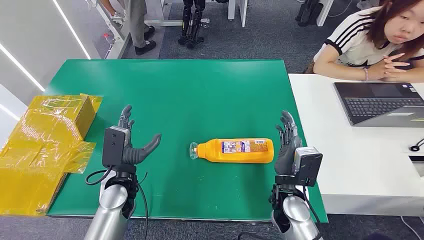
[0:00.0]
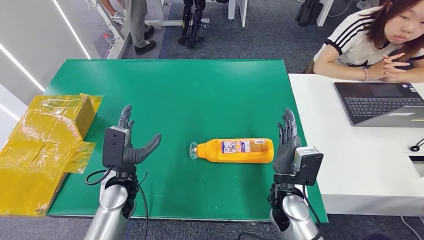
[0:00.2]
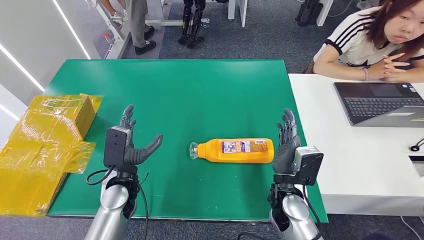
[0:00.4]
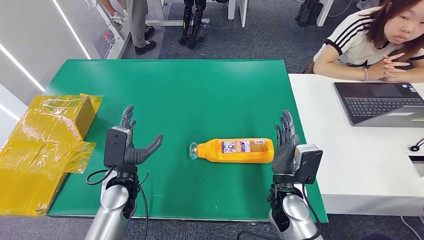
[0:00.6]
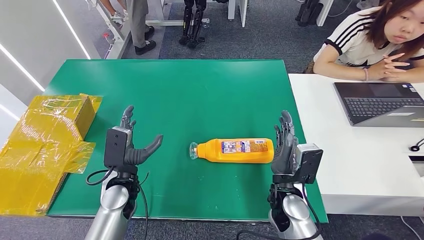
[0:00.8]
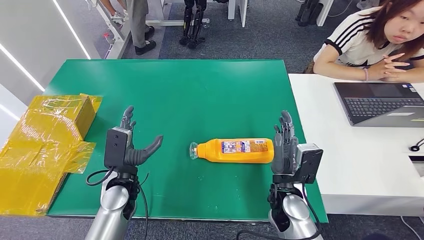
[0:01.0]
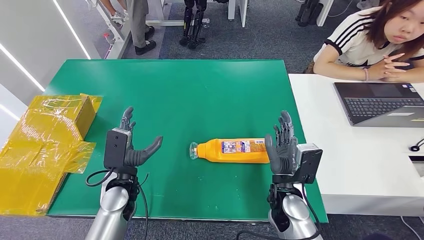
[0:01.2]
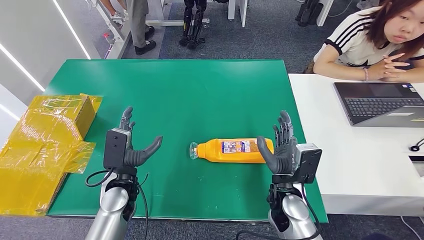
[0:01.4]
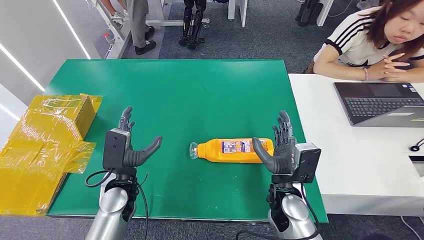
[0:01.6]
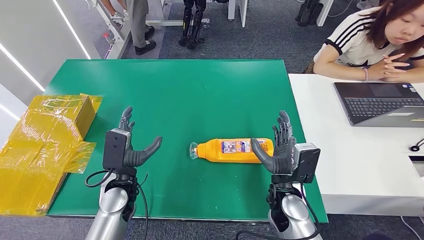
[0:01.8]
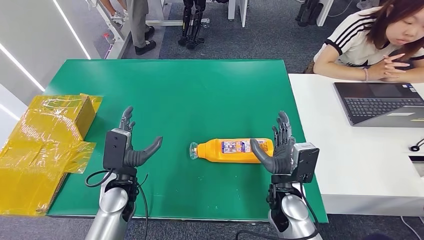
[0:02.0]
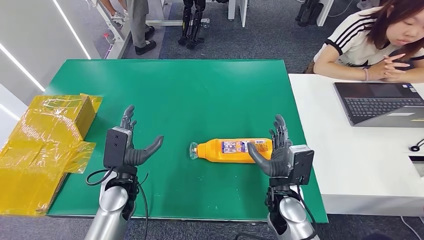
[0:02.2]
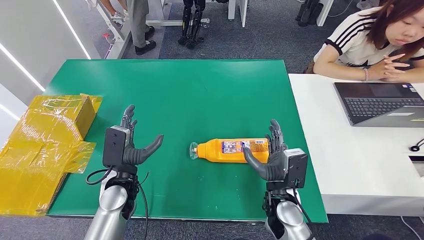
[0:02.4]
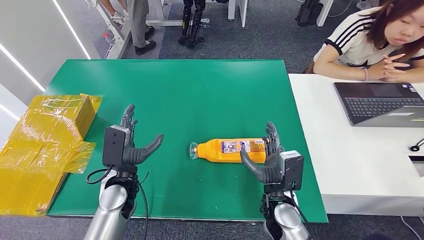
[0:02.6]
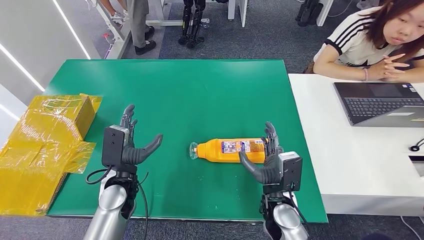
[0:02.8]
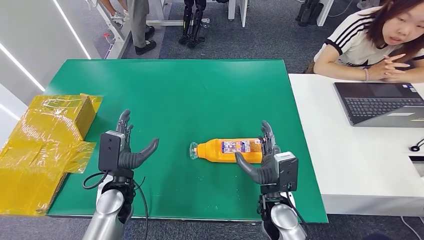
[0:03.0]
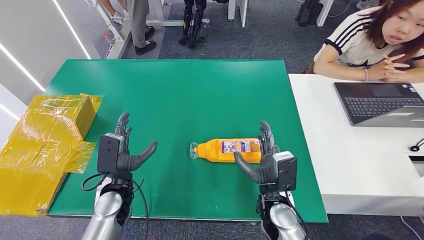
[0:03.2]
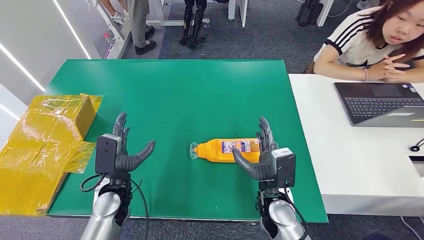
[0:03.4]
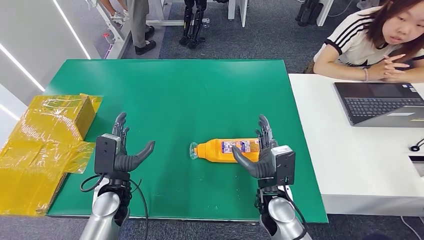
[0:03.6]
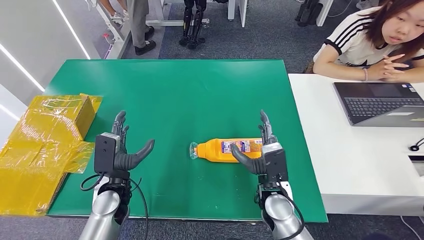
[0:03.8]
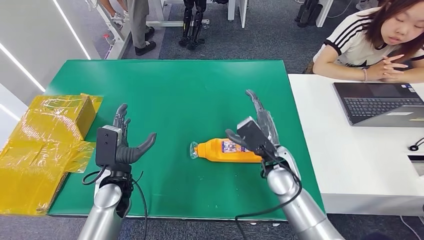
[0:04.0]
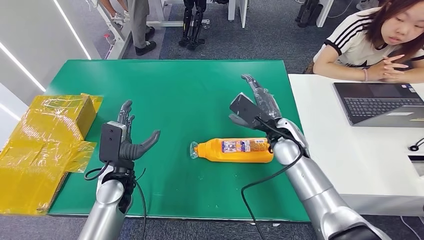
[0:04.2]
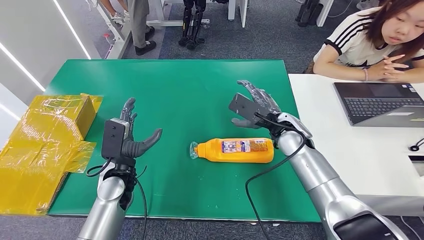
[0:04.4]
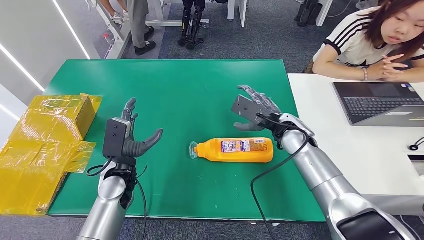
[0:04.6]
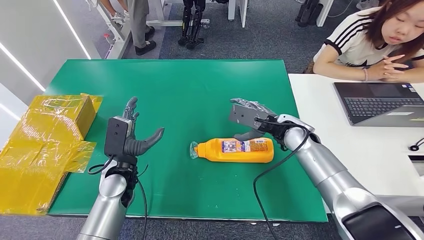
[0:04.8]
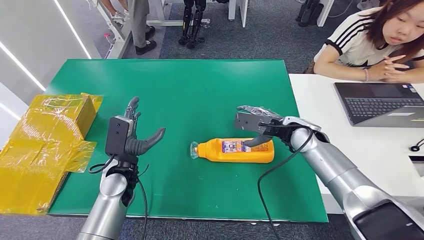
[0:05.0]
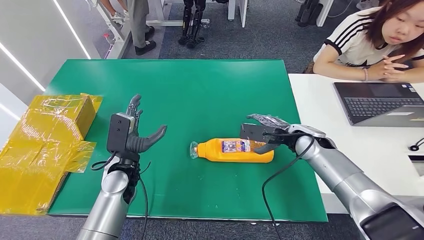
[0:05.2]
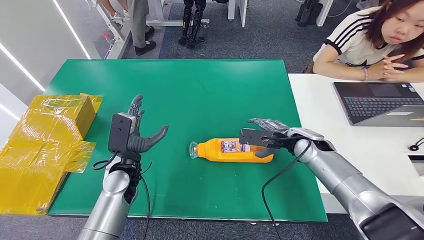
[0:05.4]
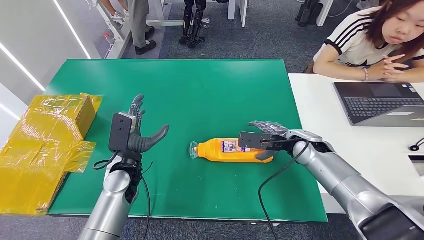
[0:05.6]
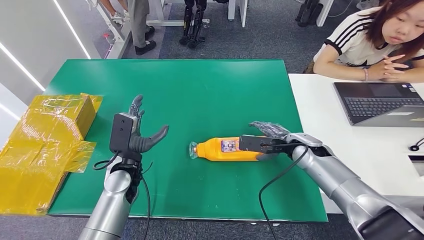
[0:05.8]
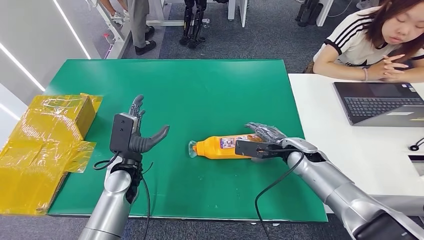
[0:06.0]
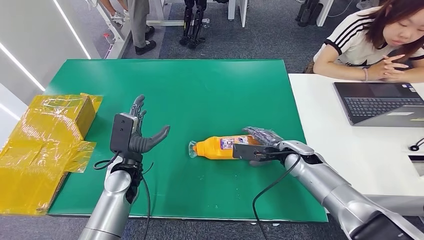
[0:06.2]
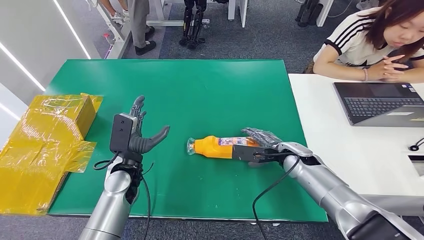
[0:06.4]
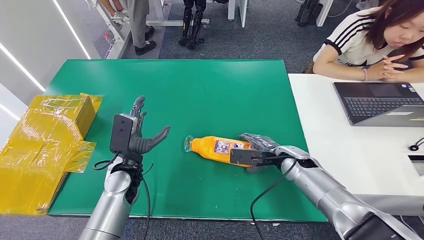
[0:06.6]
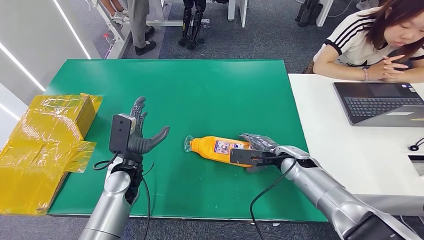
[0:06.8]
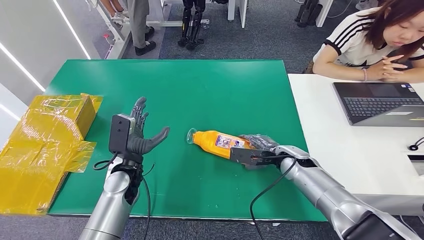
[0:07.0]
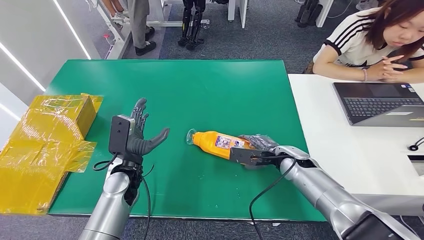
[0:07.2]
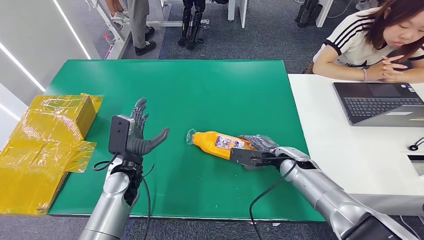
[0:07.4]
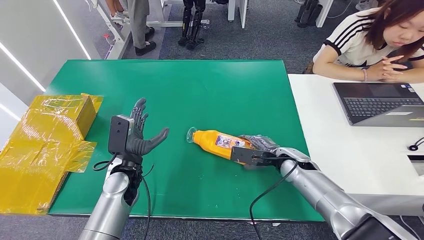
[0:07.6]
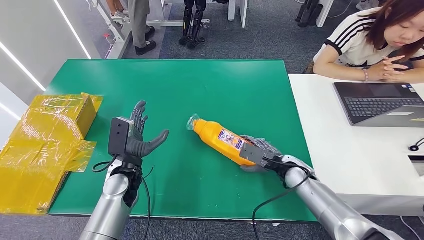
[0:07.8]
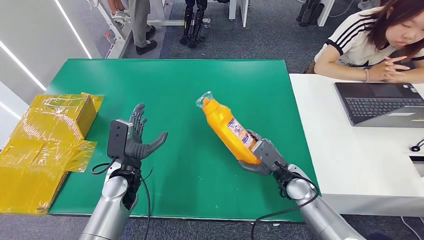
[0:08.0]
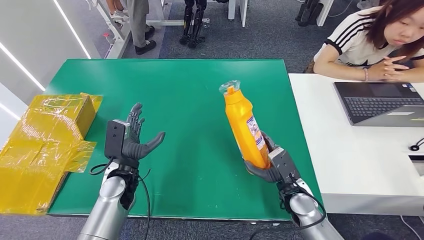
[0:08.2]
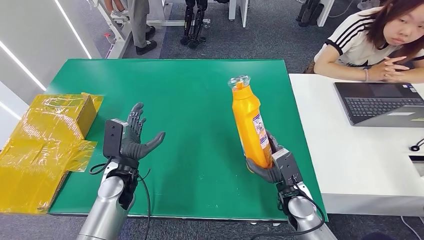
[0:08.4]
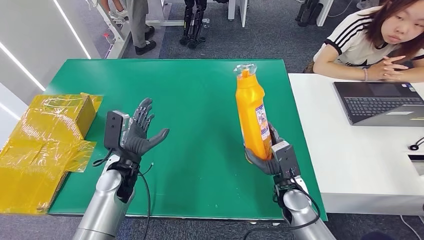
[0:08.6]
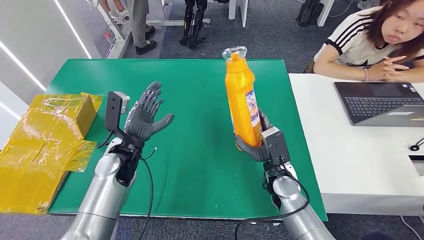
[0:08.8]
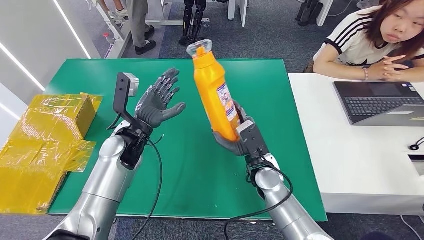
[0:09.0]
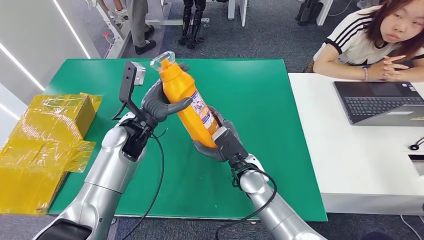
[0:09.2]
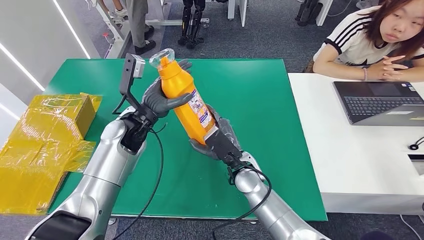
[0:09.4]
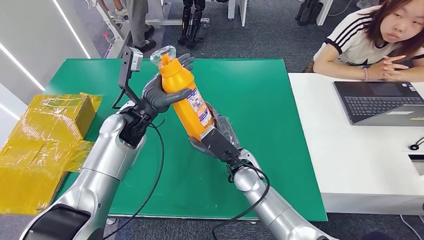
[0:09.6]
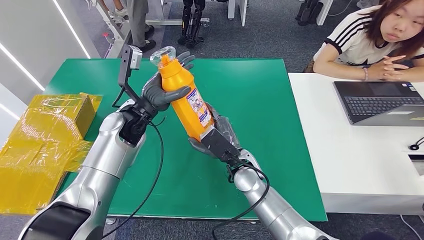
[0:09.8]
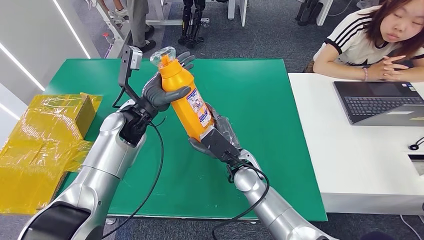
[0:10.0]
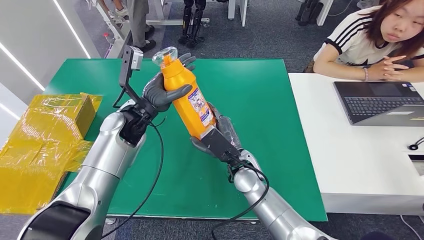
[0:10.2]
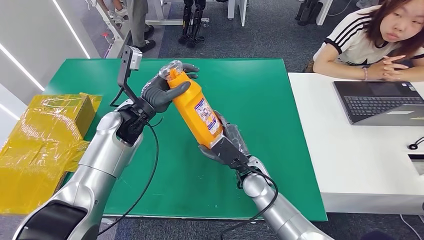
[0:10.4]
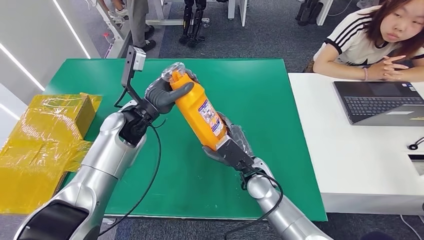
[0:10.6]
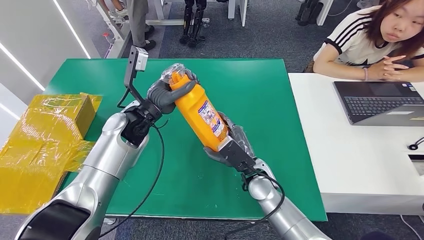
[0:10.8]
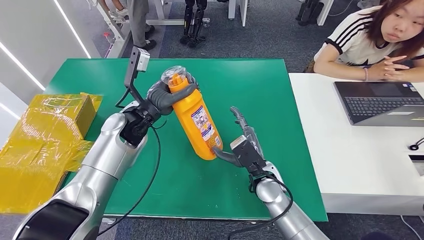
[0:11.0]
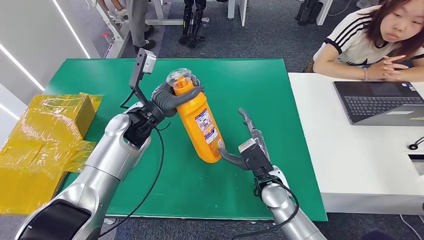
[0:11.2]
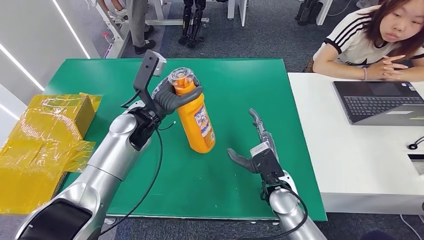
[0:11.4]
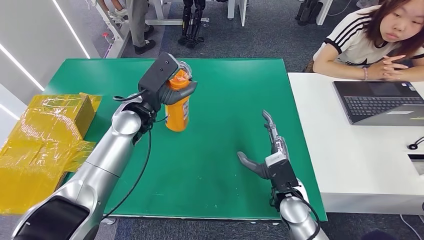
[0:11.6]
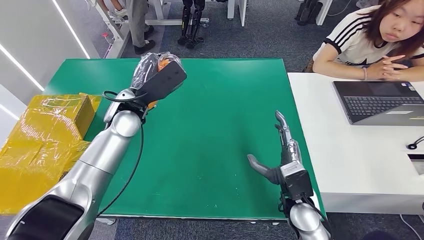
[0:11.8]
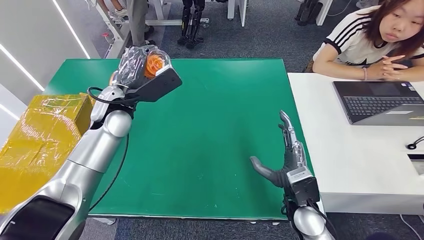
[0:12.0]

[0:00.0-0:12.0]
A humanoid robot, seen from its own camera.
Step, 0:00.0 to 0:10.8: Pick up the bottle from the table.
0:01.6 to 0:03.0: The hands stay close to where they were, moving slightly.
0:03.0 to 0:04.4: The right hand goes some 20 cm forward and upward.
0:04.4 to 0:06.0: The right hand travels downward and to the right by roughly 10 cm.
0:06.0 to 0:07.6: The hands stay close to where they were, moving slightly.
0:09.0 to 0:10.4: The left hand moves some 5 cm.
0:10.4 to 0:12.0: The right hand moves to the right and backward, roughly 15 cm.

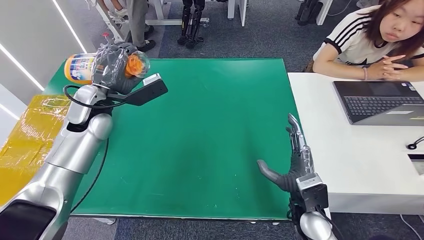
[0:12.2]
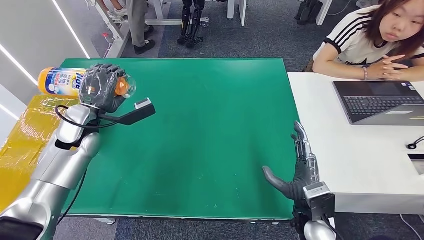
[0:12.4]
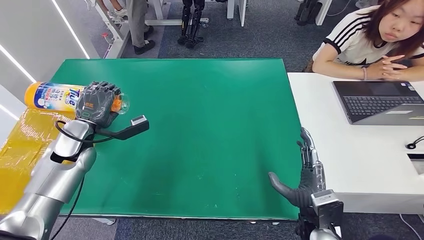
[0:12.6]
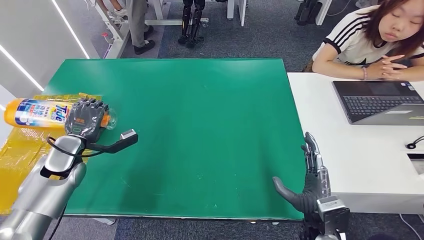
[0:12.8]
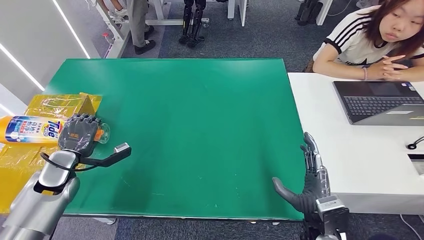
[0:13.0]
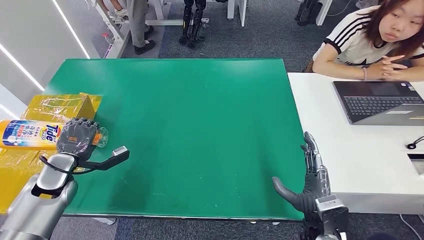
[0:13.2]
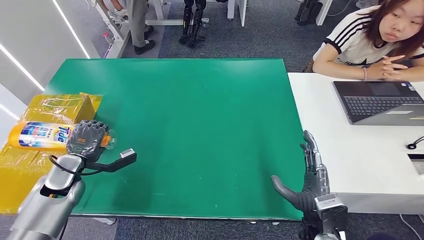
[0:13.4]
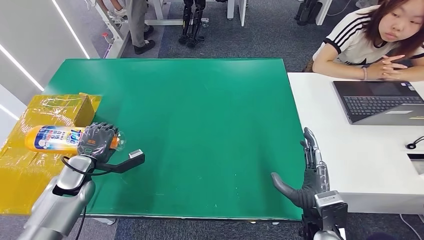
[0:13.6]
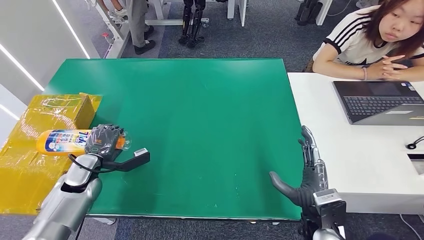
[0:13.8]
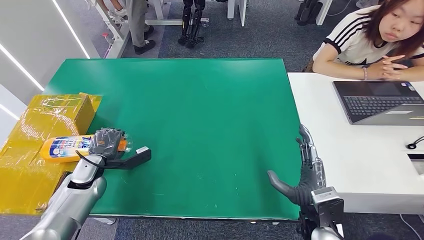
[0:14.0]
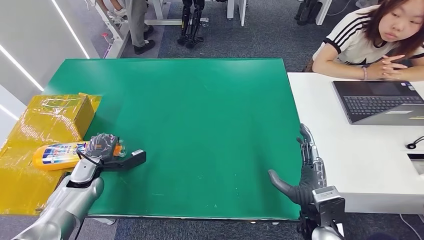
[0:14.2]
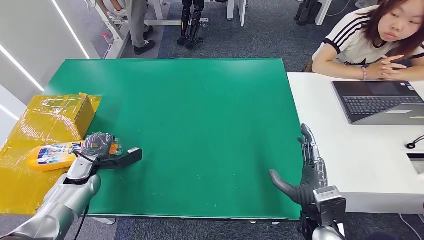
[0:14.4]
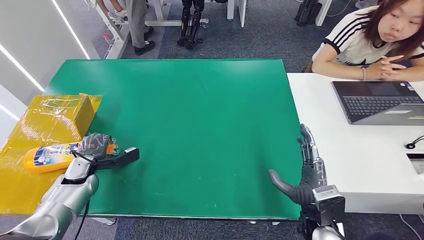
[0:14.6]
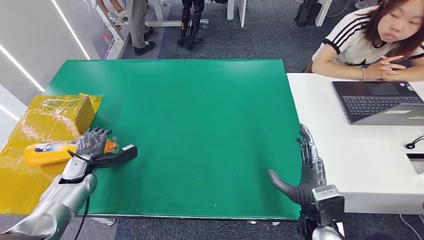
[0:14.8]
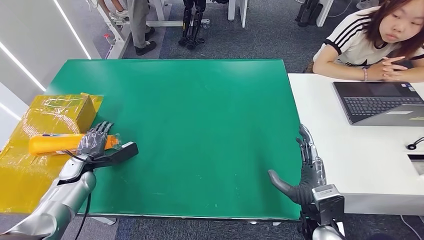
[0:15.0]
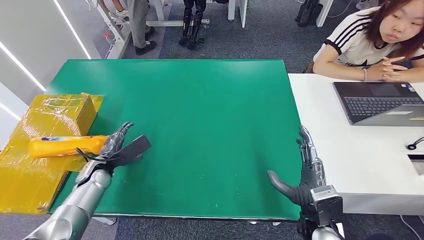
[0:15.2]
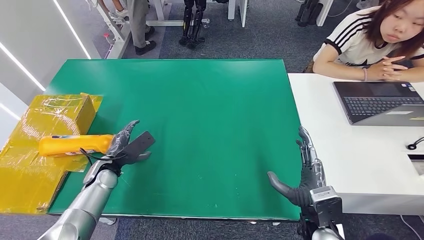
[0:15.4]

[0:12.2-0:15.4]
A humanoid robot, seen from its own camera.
Step, 0:12.2 to 0:15.4: Turn the bottle to the front side.
0:12.2 to 0:13.8: The left hand shifts some 20 cm downward, to the left and backward.
